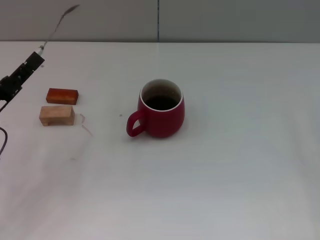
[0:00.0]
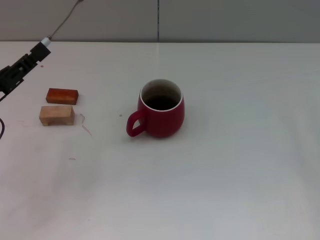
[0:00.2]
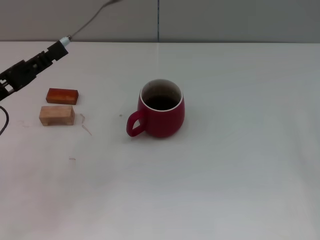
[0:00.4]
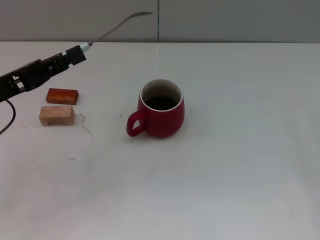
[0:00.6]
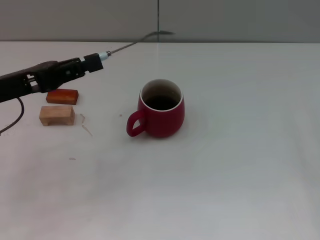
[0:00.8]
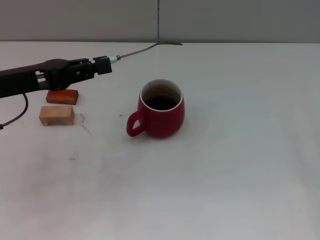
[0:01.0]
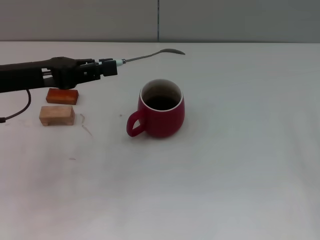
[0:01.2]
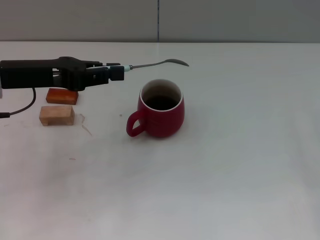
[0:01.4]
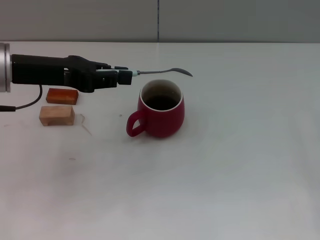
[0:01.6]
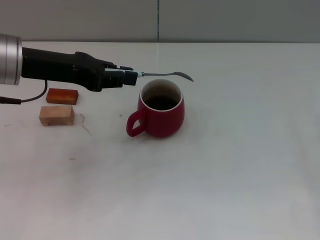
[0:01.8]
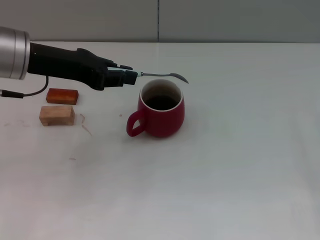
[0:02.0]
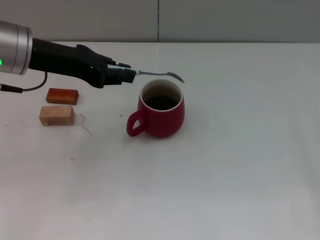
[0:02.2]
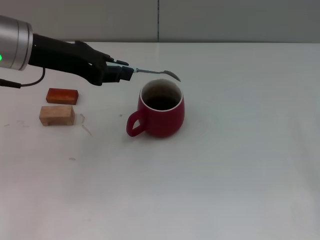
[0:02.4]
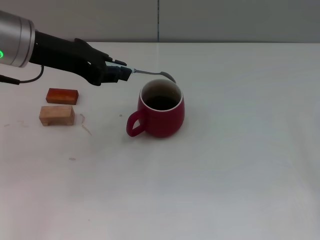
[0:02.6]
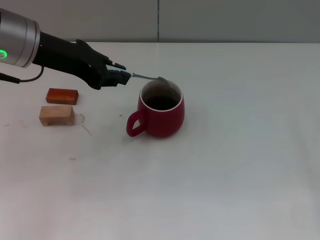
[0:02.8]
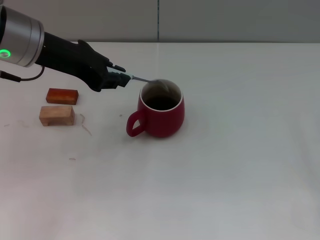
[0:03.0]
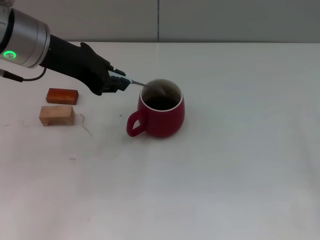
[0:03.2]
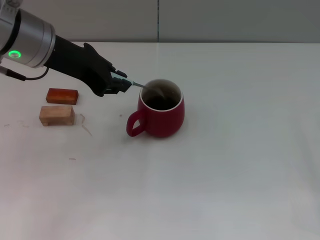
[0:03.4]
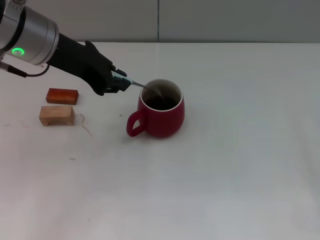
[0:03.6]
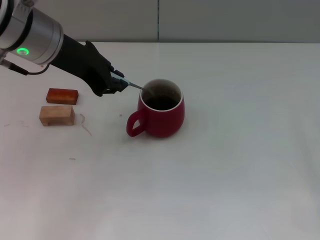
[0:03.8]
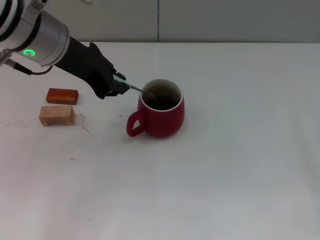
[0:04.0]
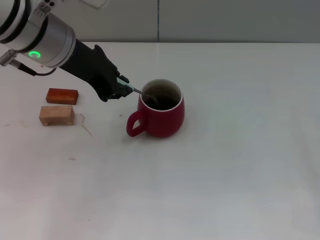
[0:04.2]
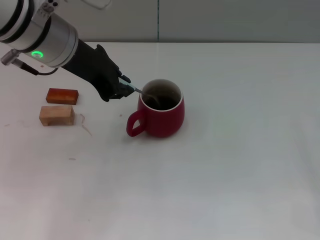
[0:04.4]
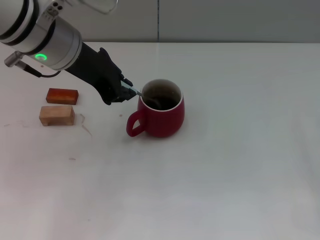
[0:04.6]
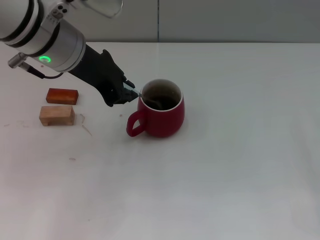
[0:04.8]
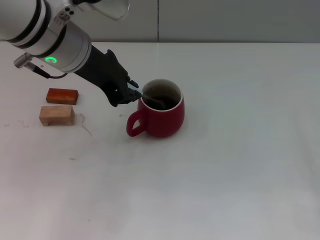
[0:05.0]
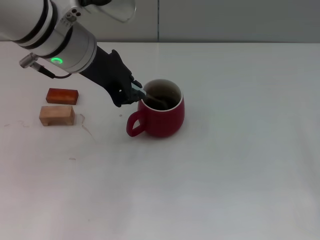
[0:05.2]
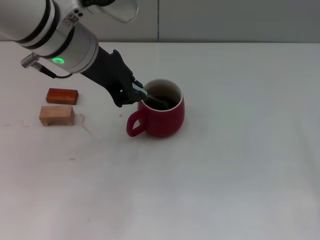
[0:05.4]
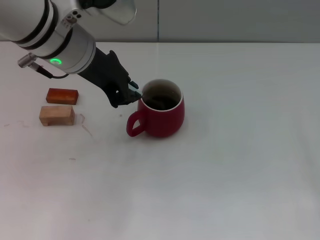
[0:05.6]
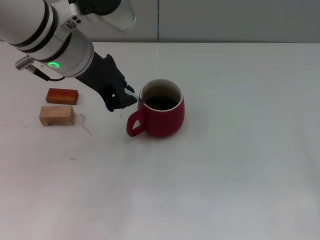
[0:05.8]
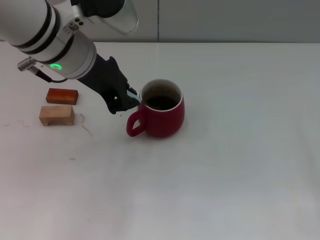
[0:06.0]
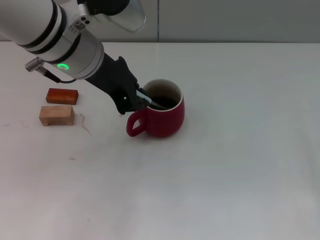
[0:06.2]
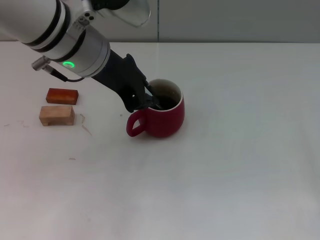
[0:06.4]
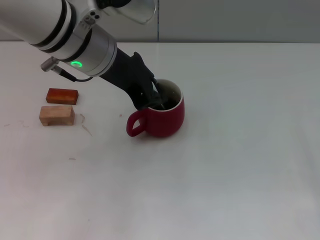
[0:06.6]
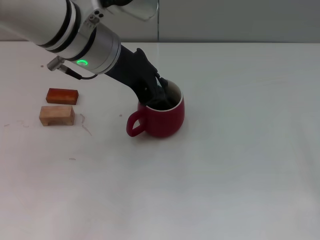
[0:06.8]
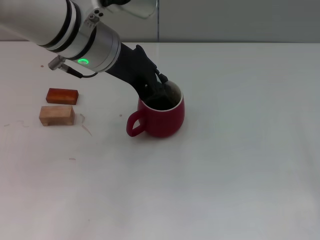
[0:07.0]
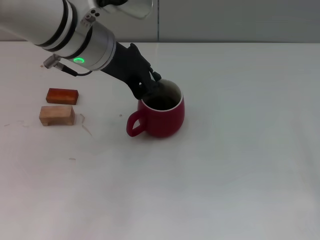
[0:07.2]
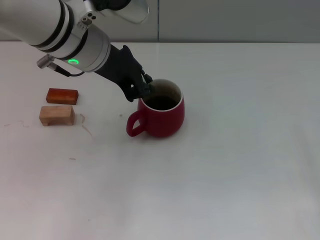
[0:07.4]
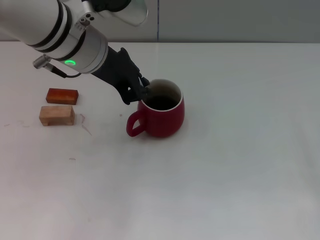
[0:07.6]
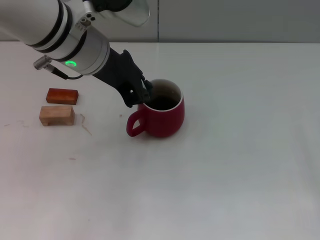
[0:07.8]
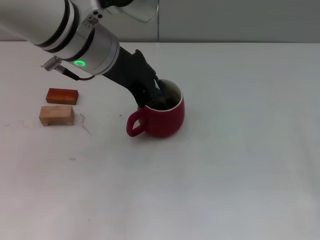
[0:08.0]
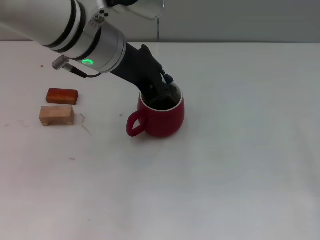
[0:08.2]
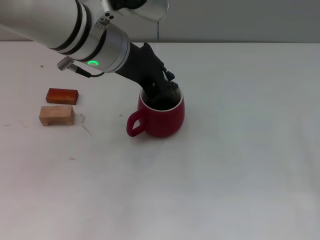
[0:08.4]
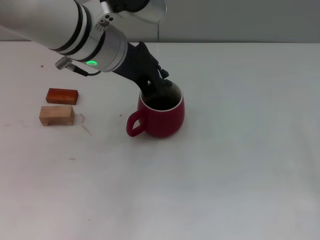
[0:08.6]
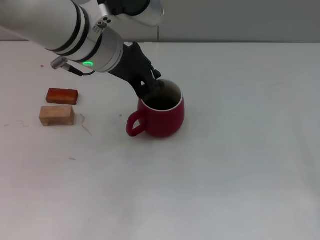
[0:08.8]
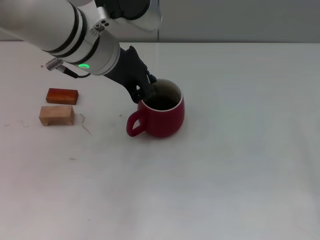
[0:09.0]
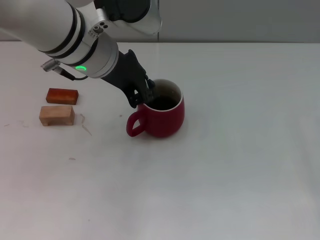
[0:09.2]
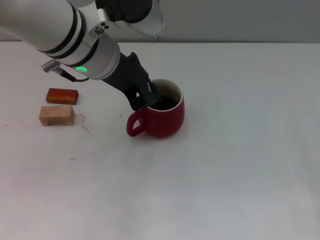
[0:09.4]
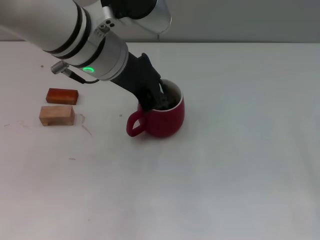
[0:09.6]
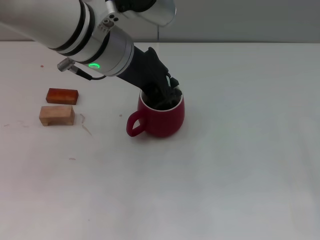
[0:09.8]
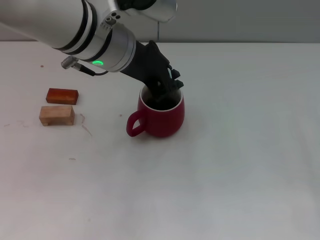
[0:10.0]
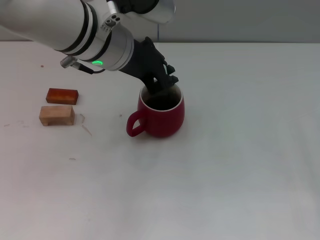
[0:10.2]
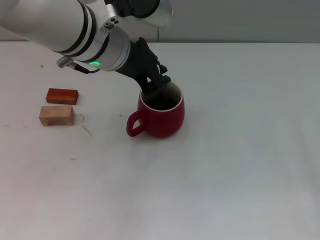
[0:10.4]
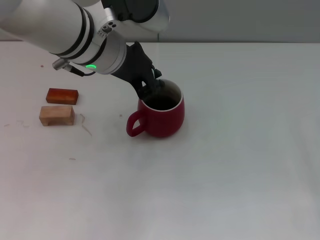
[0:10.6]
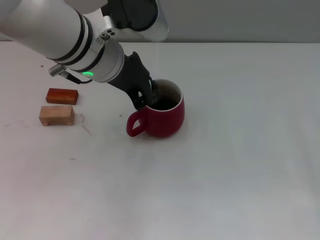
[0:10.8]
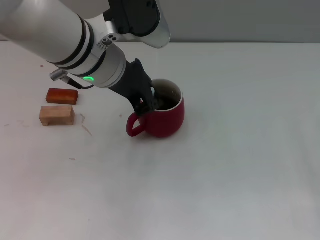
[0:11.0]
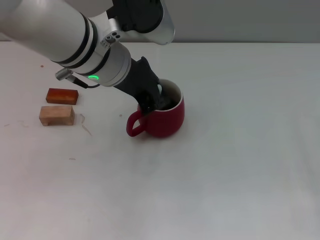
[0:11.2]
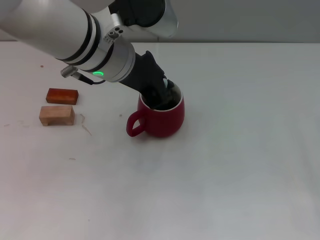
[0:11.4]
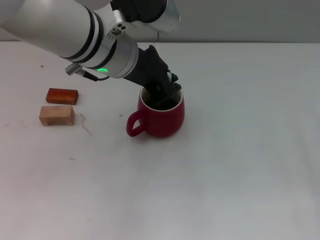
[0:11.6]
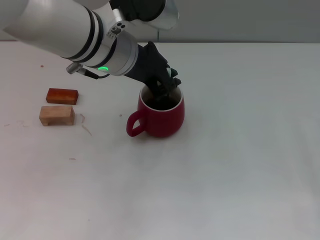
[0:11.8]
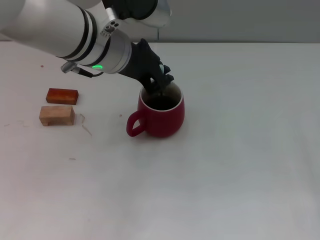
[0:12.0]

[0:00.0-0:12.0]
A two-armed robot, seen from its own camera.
Task of the whole recording: Move the red cup to the center, lift the blue spoon, stir it three times in the cup, and put the spoon into the cup.
0:00.0 to 0:01.6: The left gripper moves upward, forward and to the right, approximately 15 cm.
0:01.6 to 0:03.0: The left gripper changes place by roughly 5 cm.
0:03.0 to 0:04.4: The grippers move only a little.
0:04.4 to 0:09.0: The grippers make only small movements.
0:09.0 to 0:12.0: The grippers make only small movements.

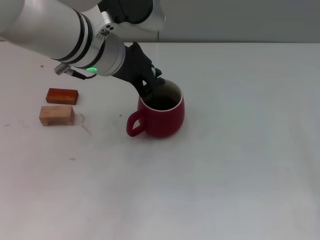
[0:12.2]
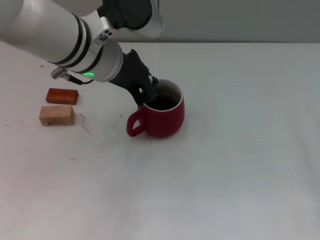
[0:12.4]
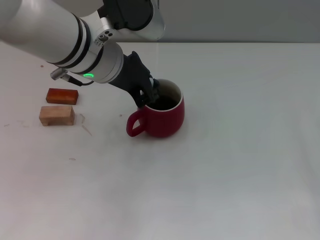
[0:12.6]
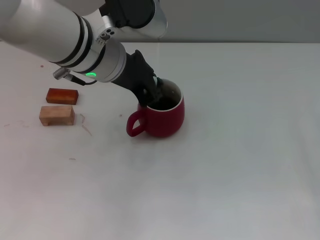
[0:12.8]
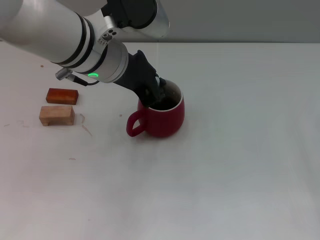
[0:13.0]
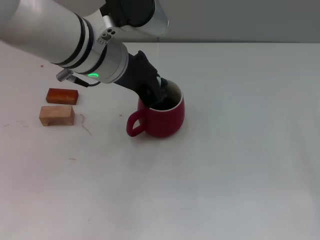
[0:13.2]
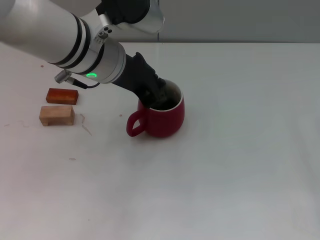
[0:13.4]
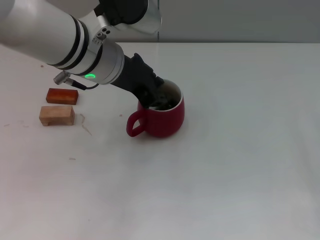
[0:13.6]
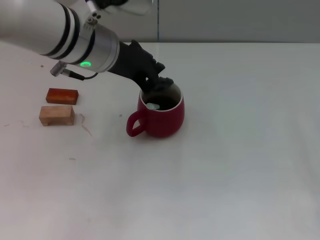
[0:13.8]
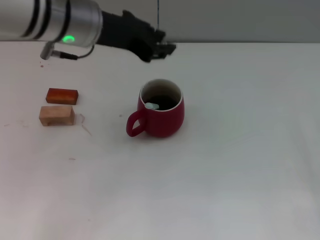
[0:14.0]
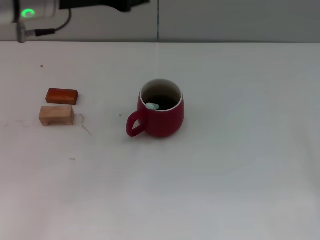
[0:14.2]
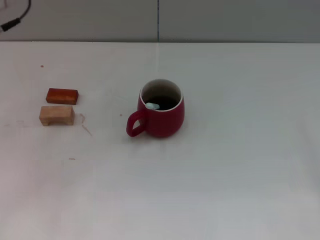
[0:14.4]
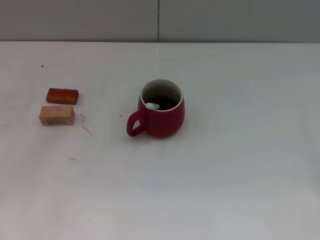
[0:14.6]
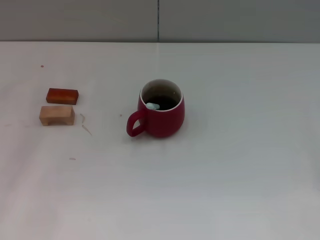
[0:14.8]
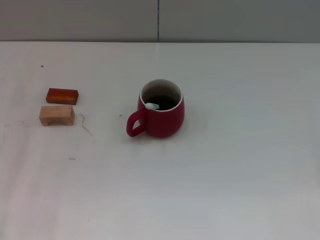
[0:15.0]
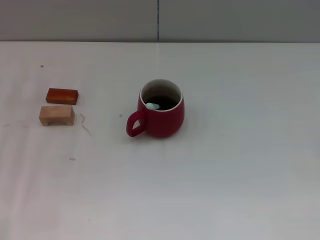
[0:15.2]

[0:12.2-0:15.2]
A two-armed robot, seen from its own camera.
Task of the whole recording: Move the red cup to the center, lift the blue spoon, stir it three times in the cup, and put the spoon into the cup.
0:12.2 to 0:13.8: The grippers make only small movements.
0:13.8 to 0:15.2: The left gripper shifts approximately 25 cm to the left and downward.
